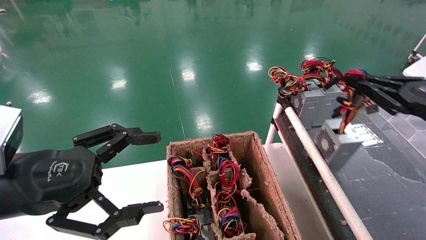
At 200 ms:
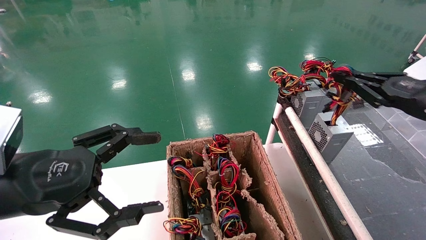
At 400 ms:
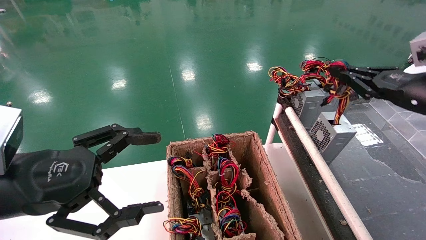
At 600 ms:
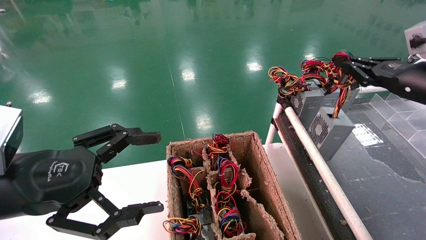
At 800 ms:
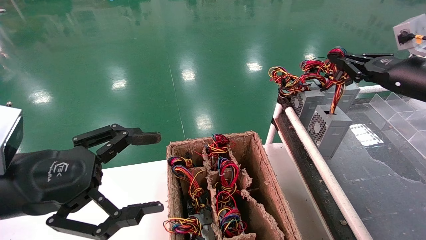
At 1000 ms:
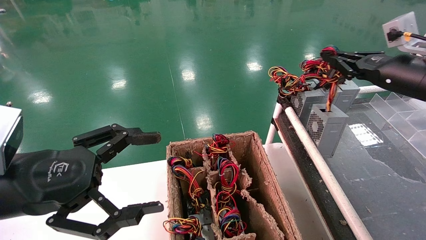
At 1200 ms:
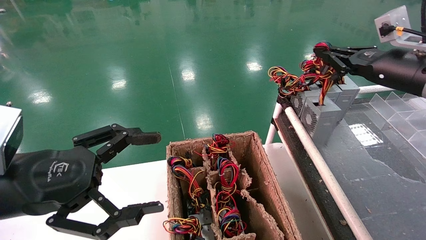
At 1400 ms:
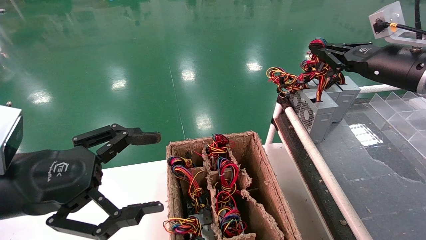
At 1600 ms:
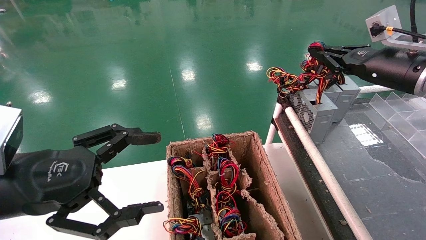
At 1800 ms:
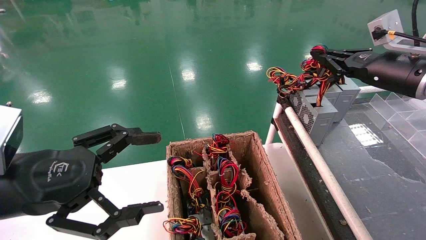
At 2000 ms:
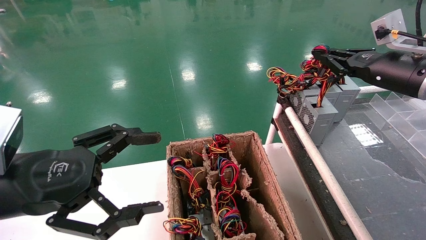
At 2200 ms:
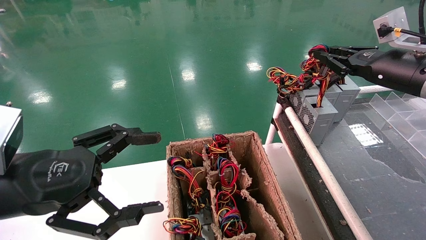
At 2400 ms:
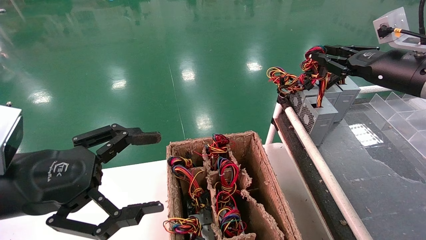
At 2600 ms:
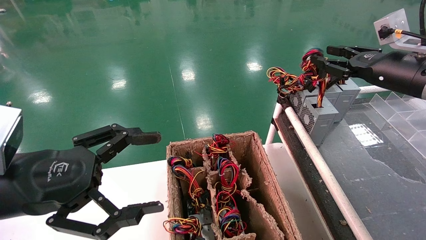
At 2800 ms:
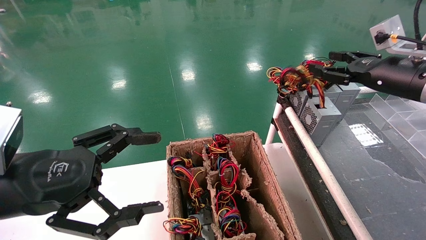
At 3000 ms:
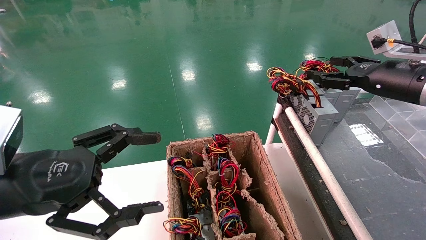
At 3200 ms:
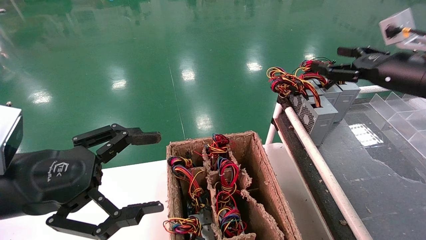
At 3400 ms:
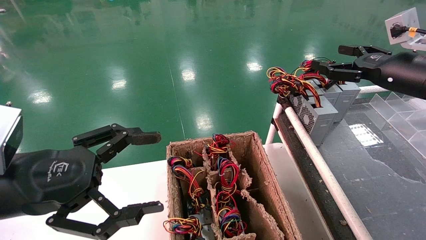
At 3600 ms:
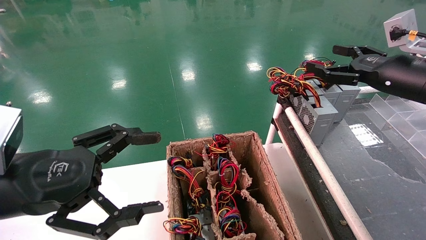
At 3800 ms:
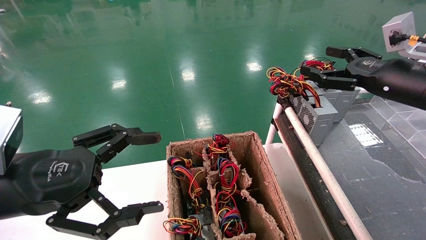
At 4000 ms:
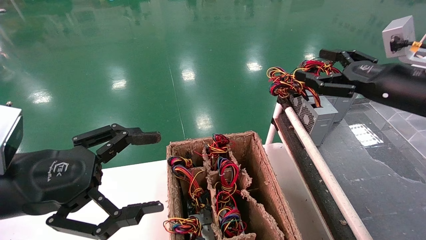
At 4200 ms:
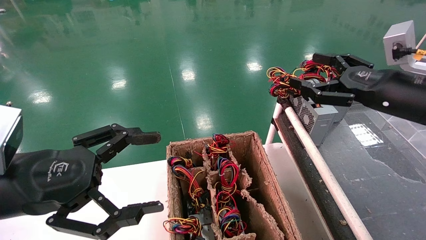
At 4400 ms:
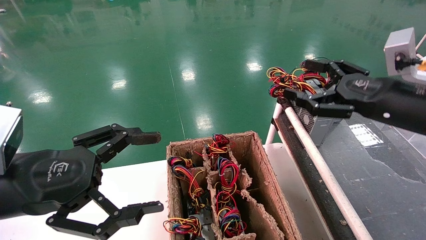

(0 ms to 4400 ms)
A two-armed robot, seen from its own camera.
Step, 0 ms - 2000 ms: Place the power supply on the operating table.
0 ms - 1400 ms: The right gripper moves forward, to the left and upward, some 15 cm.
1400 ms - 3000 ms: The right gripper opens its fingers.
3000 ms - 4400 ms: The right gripper moves backward, approximately 5 cm, and opens its fingers.

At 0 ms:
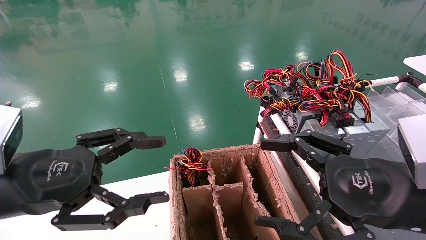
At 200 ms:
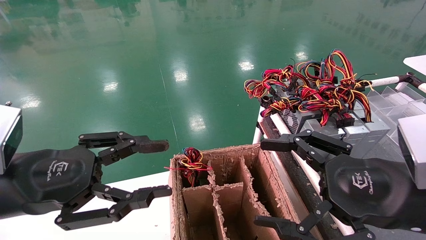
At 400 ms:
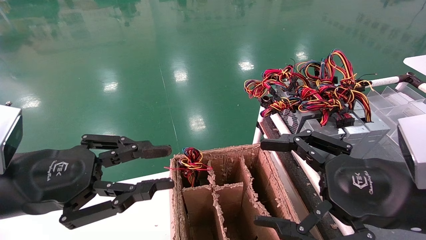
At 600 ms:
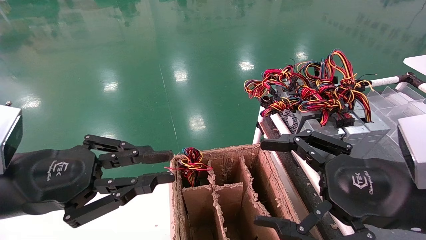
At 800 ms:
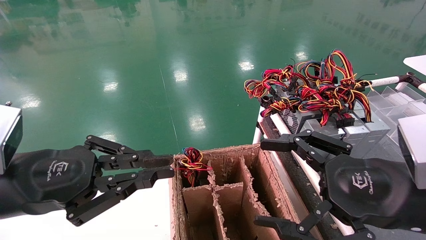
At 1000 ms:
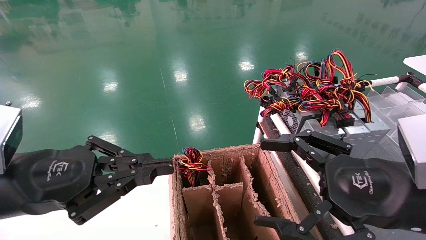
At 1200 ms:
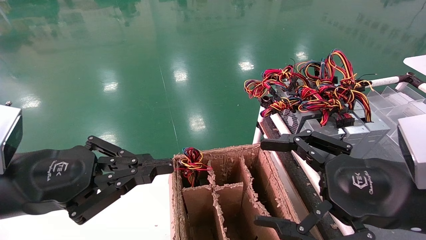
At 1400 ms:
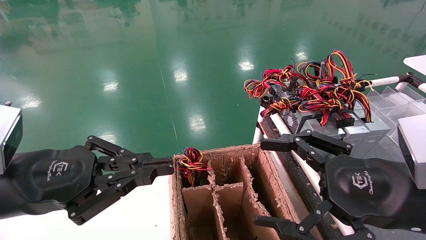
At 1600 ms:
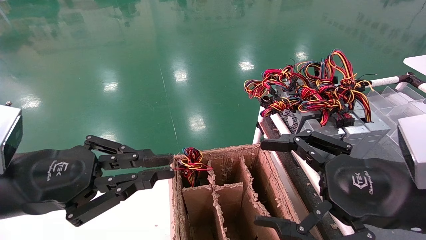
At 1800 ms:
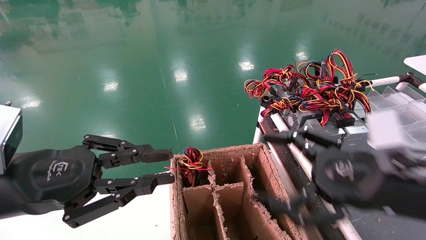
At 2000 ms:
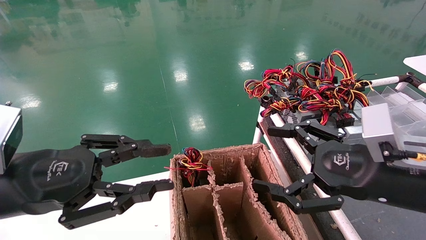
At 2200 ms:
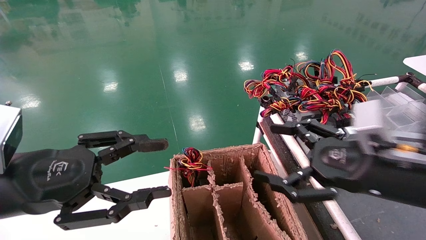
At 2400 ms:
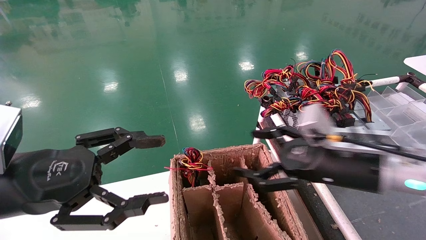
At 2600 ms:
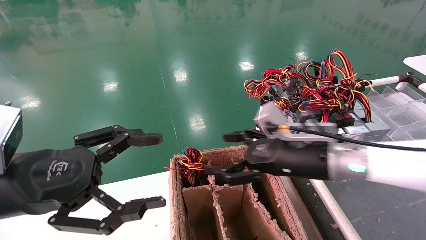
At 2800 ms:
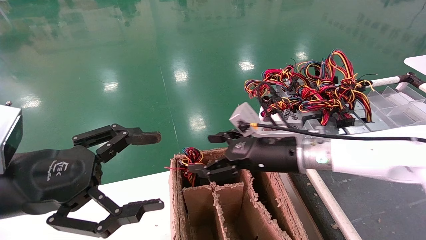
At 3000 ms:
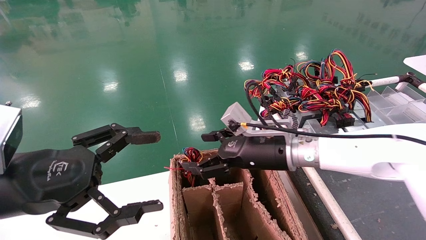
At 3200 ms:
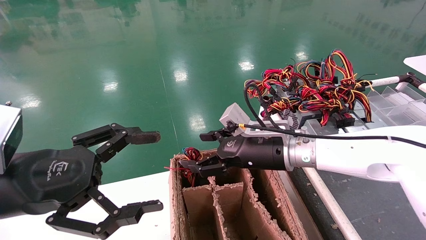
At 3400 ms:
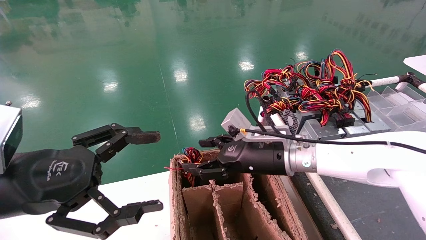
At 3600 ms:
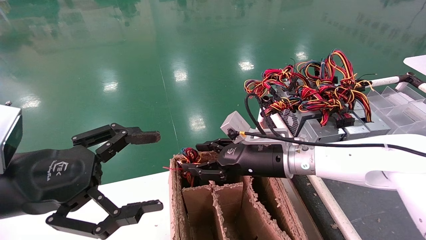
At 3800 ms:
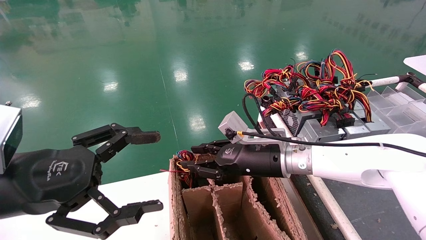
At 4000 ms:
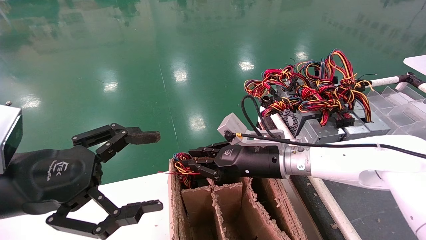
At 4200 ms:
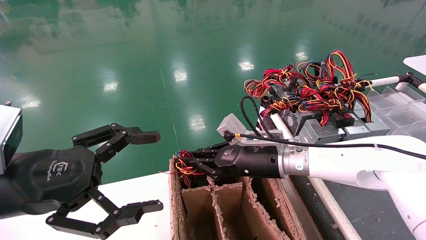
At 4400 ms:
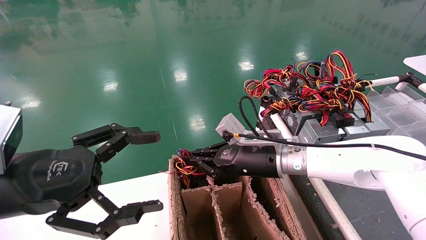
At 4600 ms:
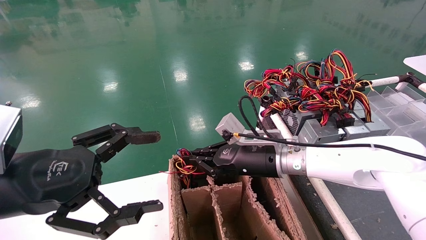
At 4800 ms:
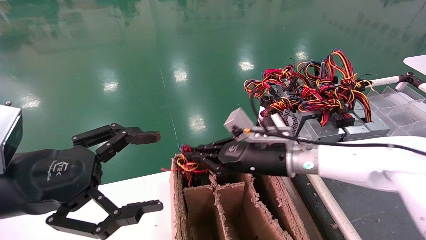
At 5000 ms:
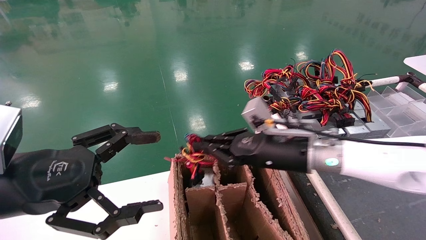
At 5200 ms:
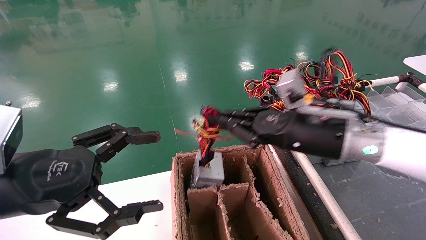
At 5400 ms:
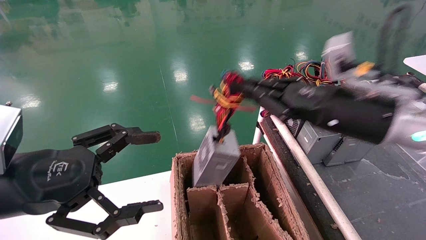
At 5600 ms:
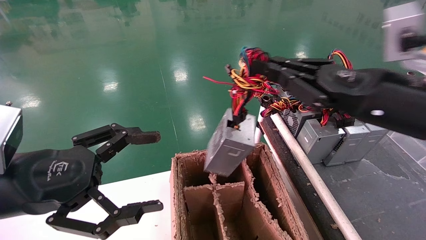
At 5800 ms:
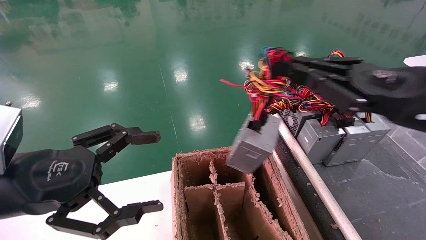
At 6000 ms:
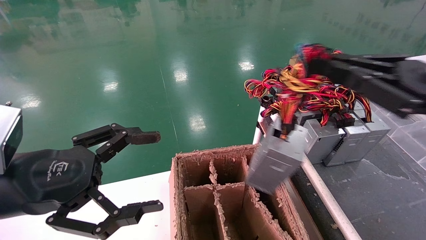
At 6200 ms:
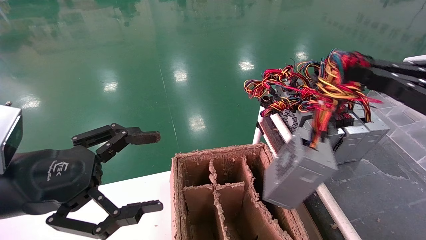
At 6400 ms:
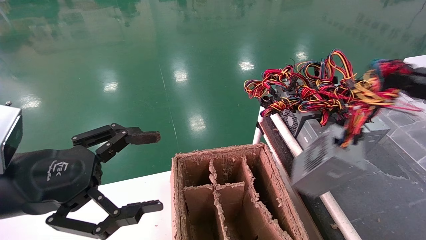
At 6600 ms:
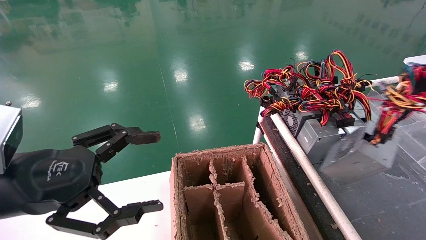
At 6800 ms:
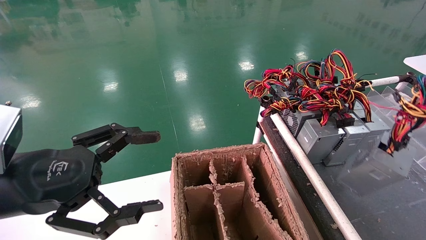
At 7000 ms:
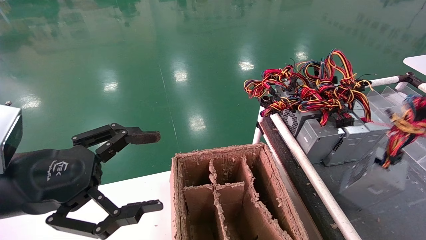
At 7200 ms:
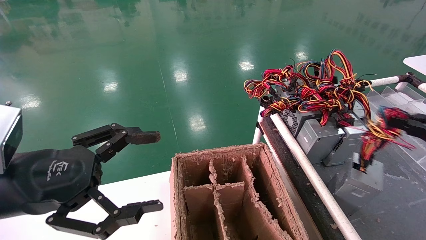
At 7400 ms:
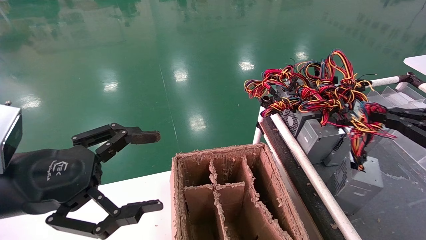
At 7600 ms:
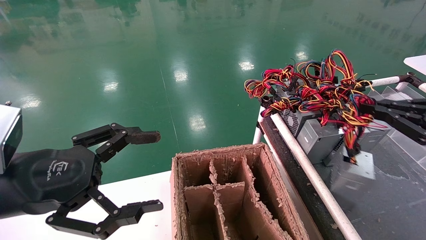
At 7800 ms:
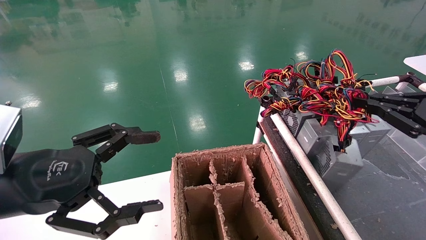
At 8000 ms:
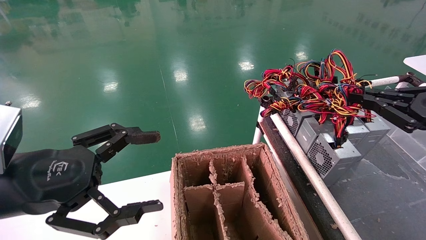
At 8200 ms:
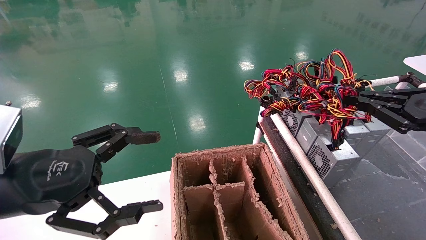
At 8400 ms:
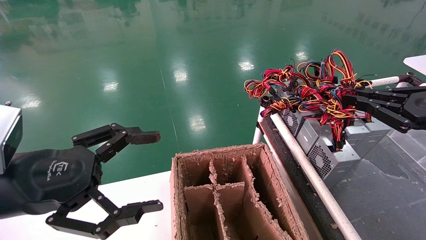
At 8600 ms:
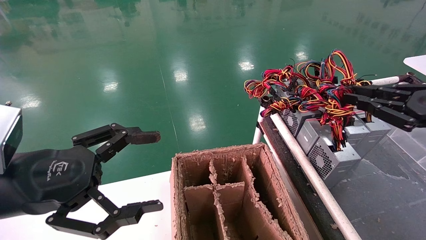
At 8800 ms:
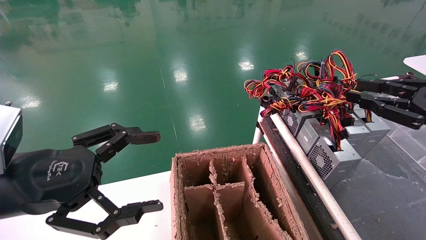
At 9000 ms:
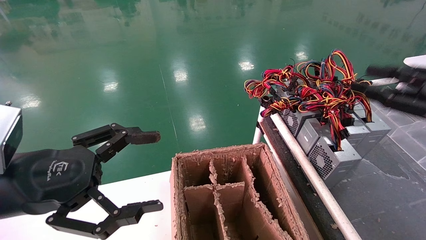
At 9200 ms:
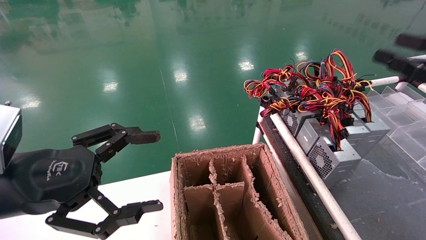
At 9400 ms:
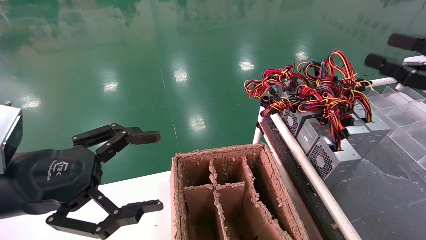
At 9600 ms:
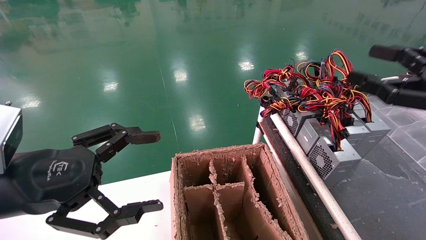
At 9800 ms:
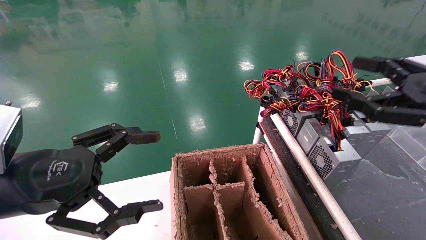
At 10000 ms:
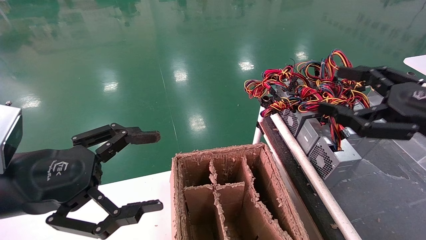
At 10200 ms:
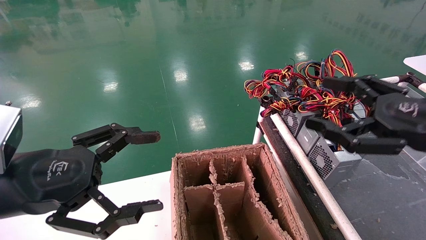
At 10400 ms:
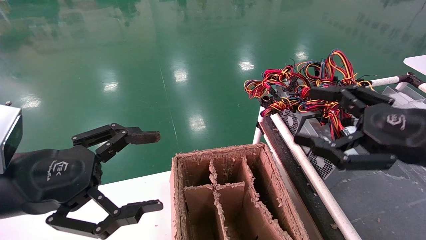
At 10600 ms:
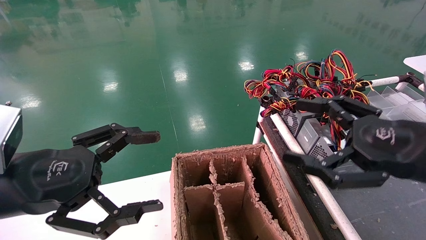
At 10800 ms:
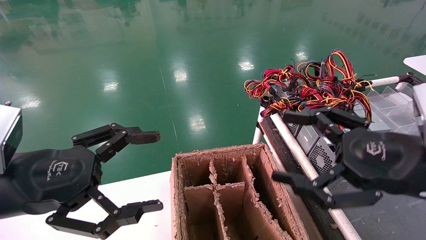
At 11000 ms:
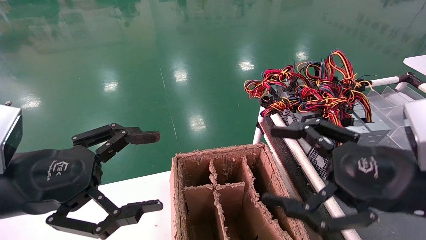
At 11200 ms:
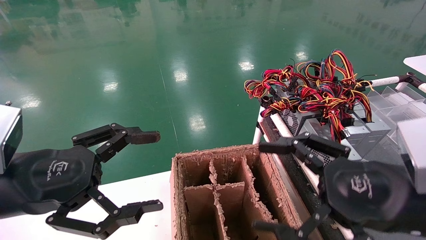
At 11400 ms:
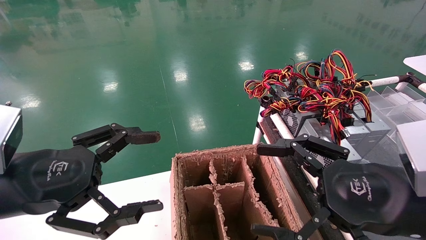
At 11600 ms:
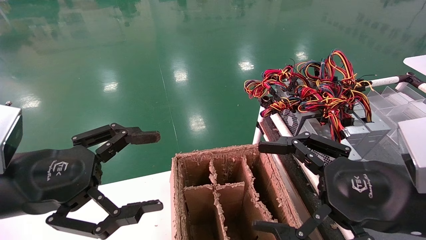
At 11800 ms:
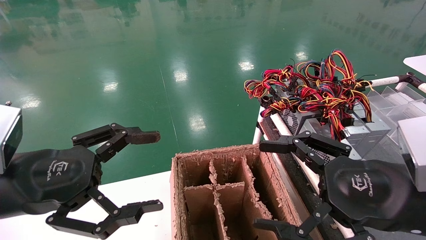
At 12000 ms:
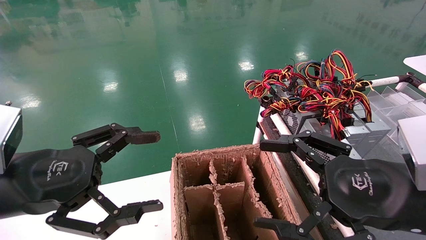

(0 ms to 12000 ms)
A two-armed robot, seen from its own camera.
Step, 1200 ms - 4400 ms: Grab and lift the power supply from the large box.
Step, 4600 ms - 8400 ms: Place the power supply on the operating table.
0 ms - 1600 ms: The left gripper closes its fingers.
1600 ms - 3000 ms: The right gripper is displaced forward and to the left by about 20 cm. The left gripper opens.
3000 ms - 4400 ms: The right gripper closes.
4400 ms - 6000 ms: The right gripper goes some 30 cm to the right, backward and upward.
6000 ms - 7600 ms: The right gripper heads to the right, covering roughly 10 cm.
7600 ms - 9000 ms: The right gripper opens its fingers.
9000 ms - 10400 ms: The right gripper shifts some 10 cm to the left, and opens up.
10400 ms - 12000 ms: The right gripper moves to the left, about 5 cm.
